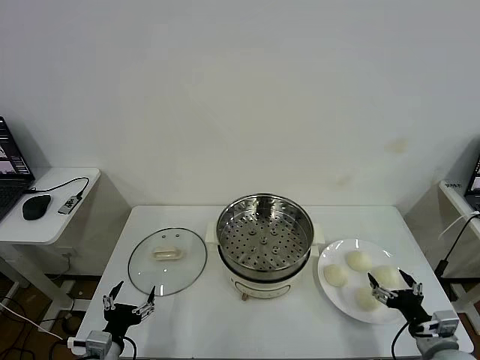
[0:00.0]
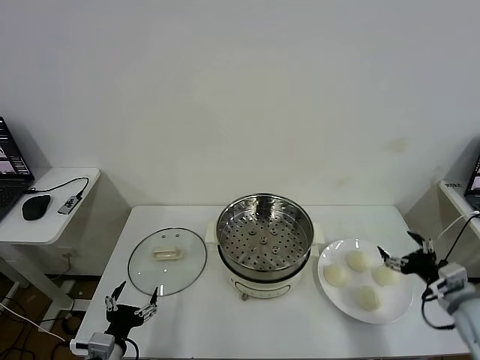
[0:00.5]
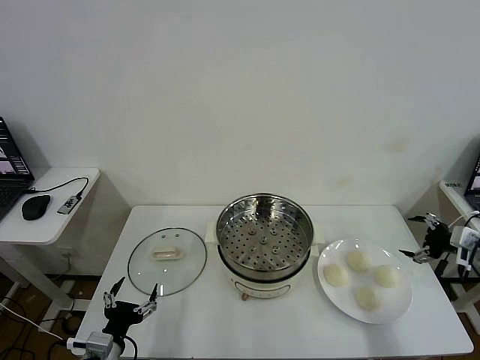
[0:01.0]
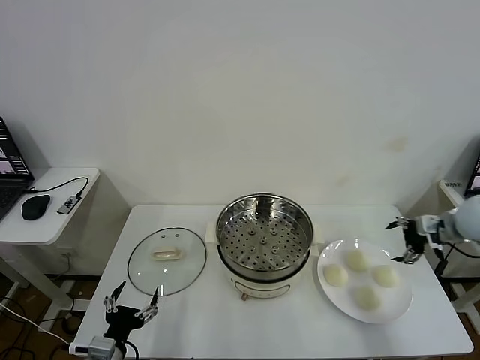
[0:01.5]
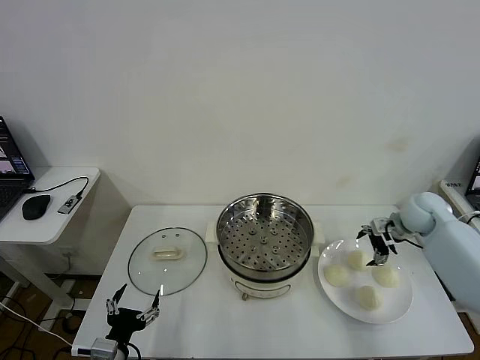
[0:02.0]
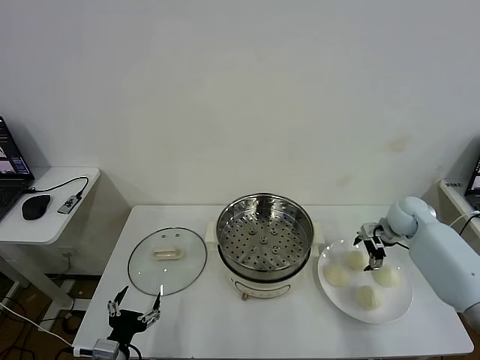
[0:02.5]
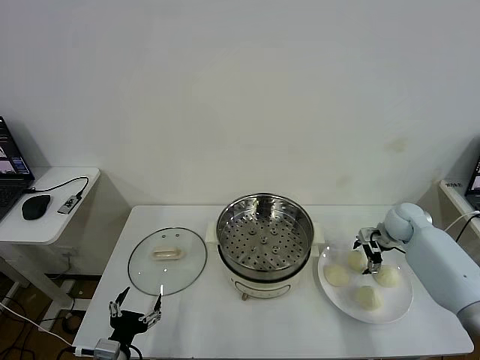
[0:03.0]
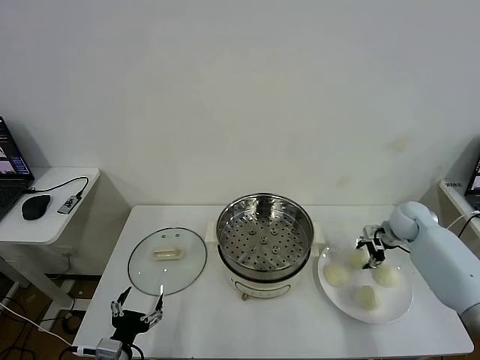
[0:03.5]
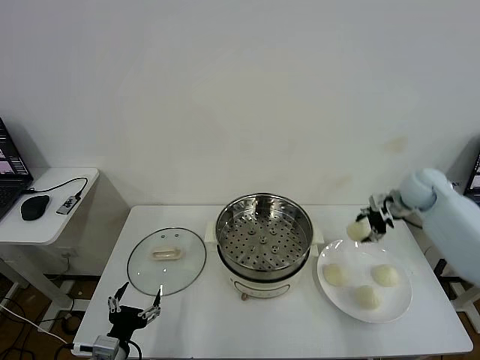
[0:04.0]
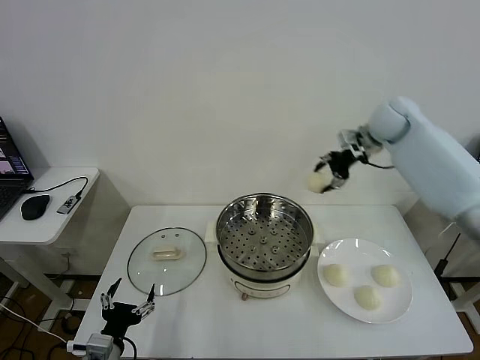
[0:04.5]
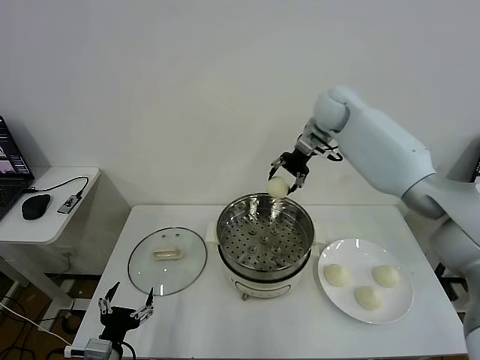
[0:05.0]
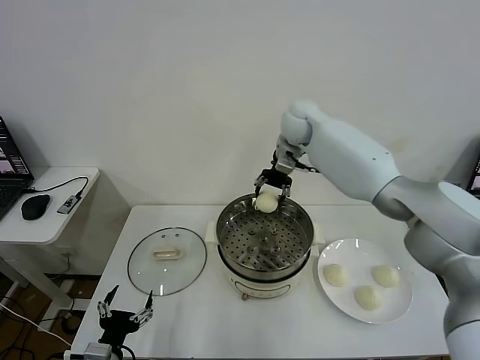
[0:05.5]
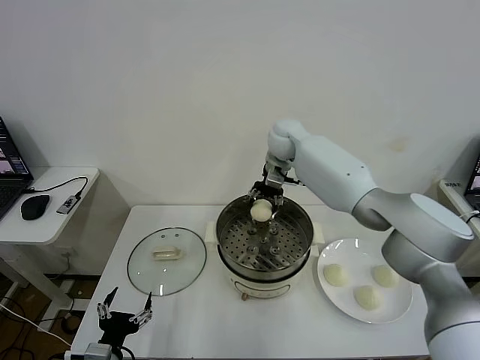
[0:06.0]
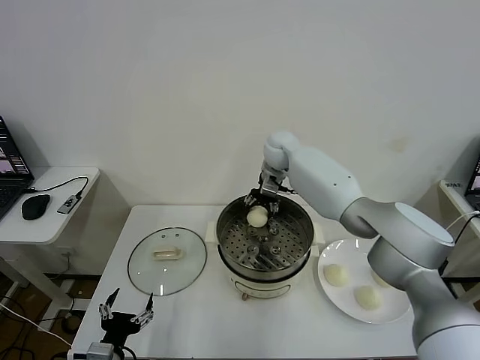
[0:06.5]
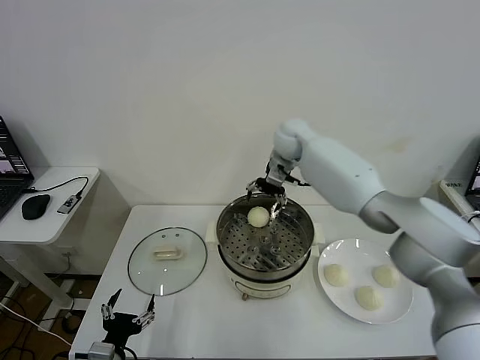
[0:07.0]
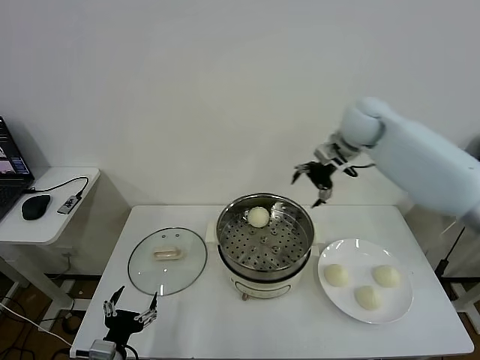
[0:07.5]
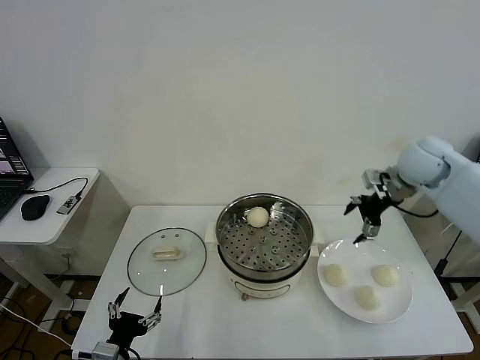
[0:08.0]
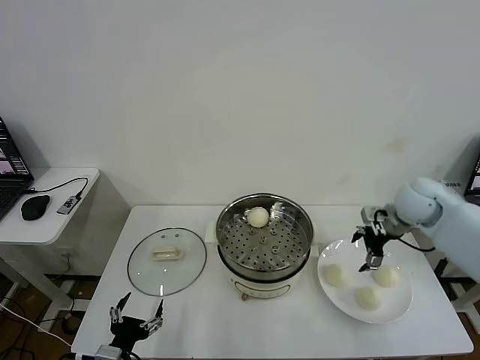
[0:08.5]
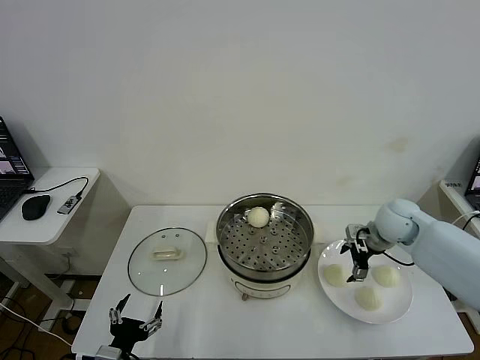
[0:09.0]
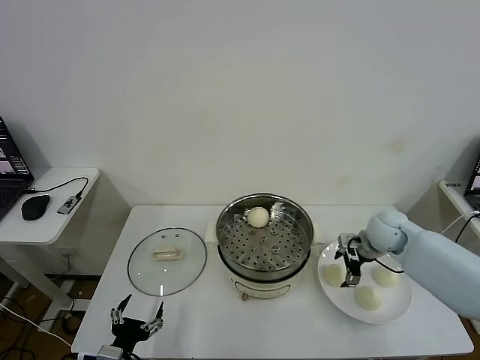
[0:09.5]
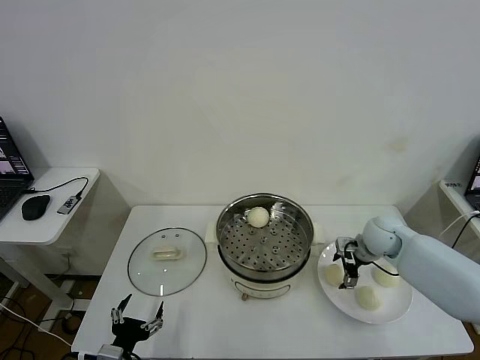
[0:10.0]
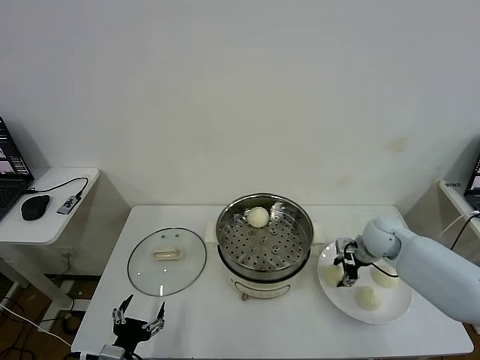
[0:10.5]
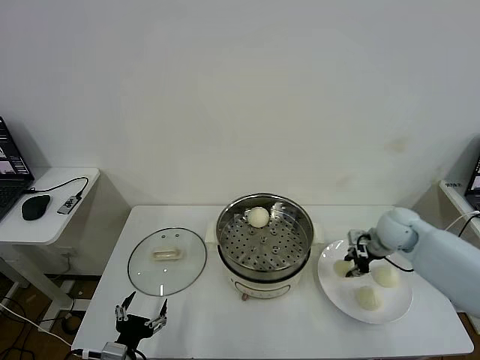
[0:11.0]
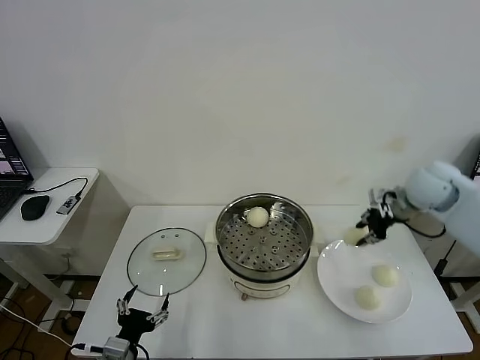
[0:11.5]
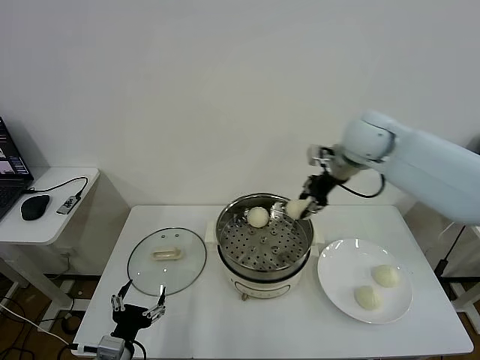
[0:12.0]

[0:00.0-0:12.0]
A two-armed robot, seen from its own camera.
Task of the whole recording: take steamed baozi put them in steamer then cover it.
Step, 0:00.0 to 0:03.0: Grasp the baozi in the plate with right gripper.
Step, 0:03.5 to 0:06.5: Place the baozi on the steamer with right gripper.
Step, 0:07.0 to 0:10.0: Grasp the baozi in the plate with right gripper.
0:02.0 to 0:04.0: The right gripper is displaced upward by roughly 10 cm, and closes its fingers.
0:04.0 to 0:06.0: The right gripper is displaced to the left by about 30 cm.
0:06.0 to 0:08.0: The right gripper shifts about 30 cm to the right and backward, and opens its fingers.
0:08.0 to 0:10.0: The right gripper travels downward by about 15 cm.
0:10.0 to 0:12.0: The right gripper heads upward and to the left, covering roughly 30 cm, and closes.

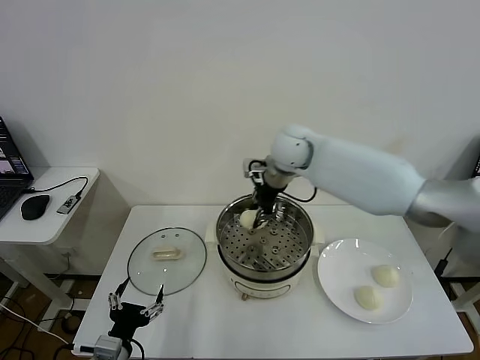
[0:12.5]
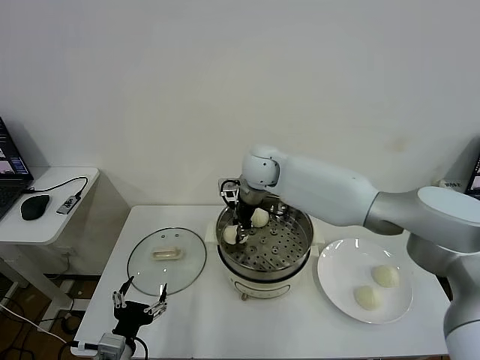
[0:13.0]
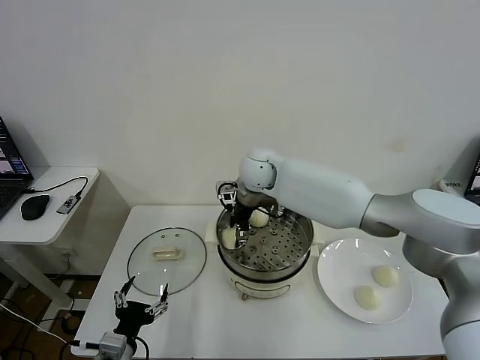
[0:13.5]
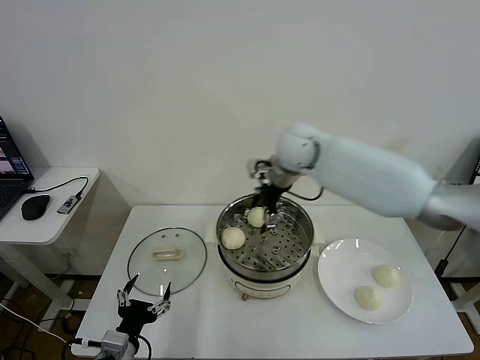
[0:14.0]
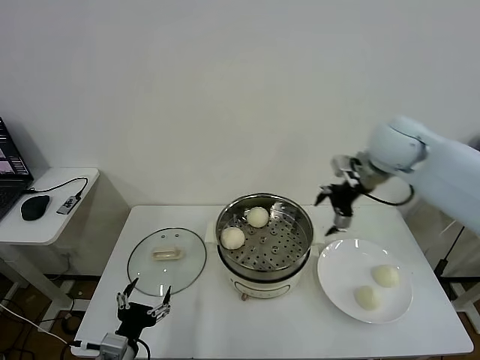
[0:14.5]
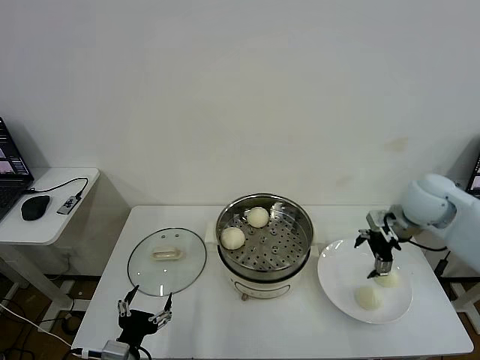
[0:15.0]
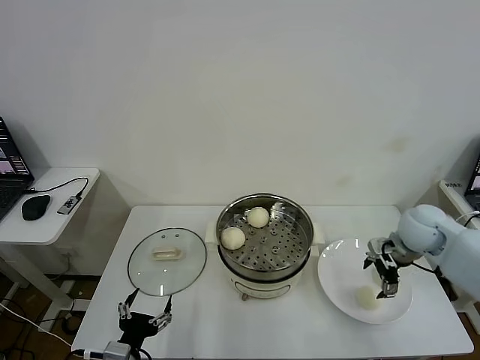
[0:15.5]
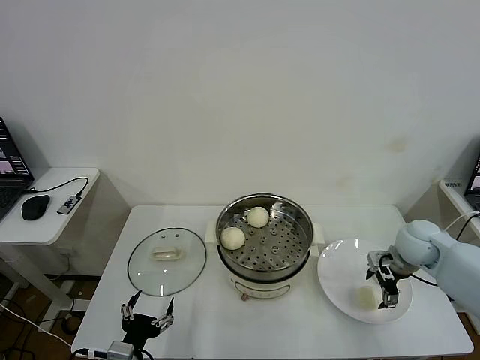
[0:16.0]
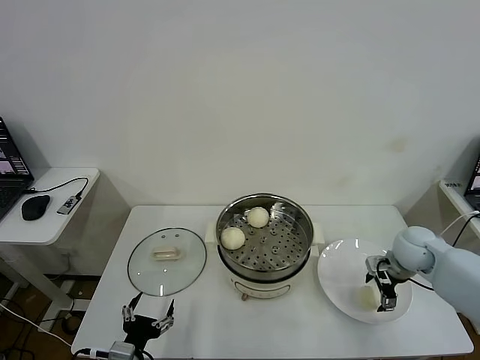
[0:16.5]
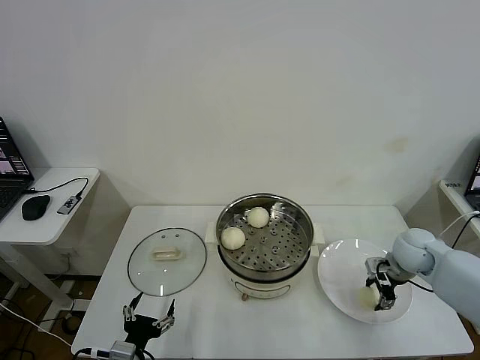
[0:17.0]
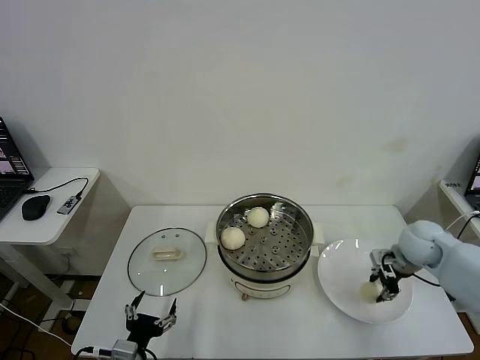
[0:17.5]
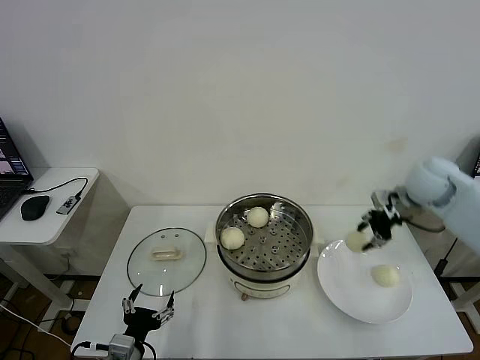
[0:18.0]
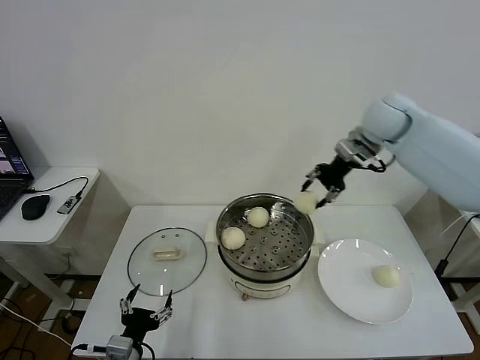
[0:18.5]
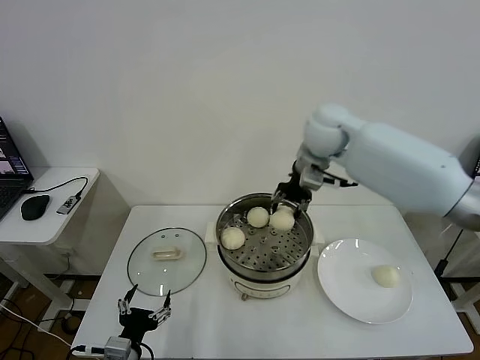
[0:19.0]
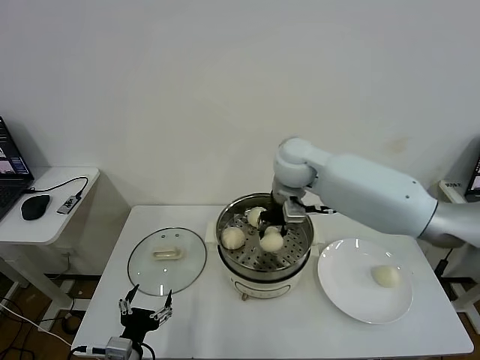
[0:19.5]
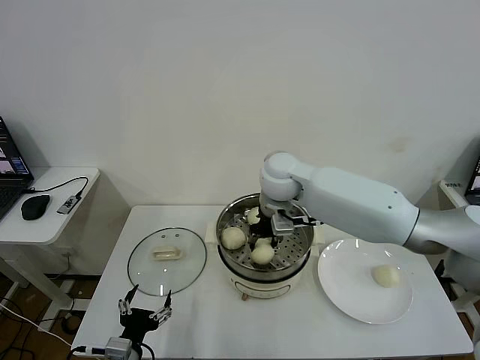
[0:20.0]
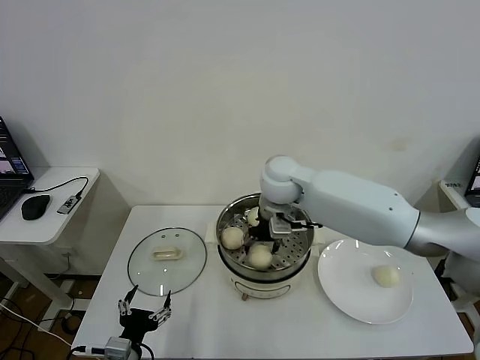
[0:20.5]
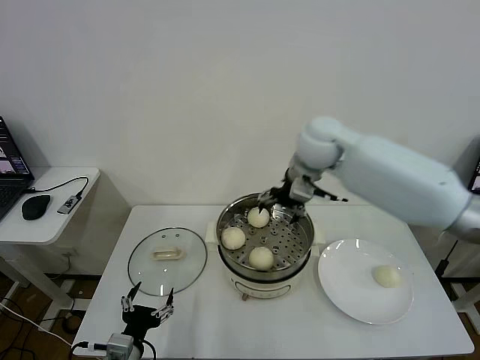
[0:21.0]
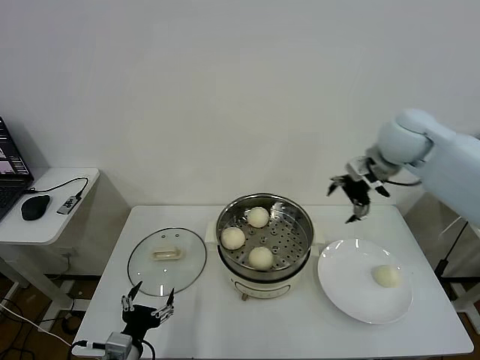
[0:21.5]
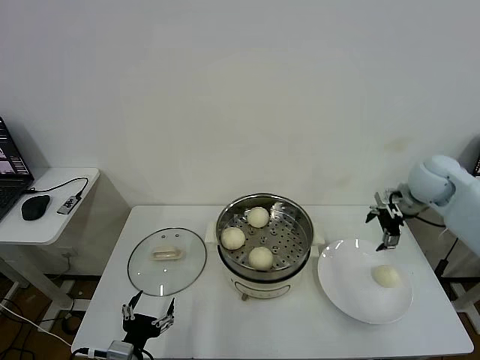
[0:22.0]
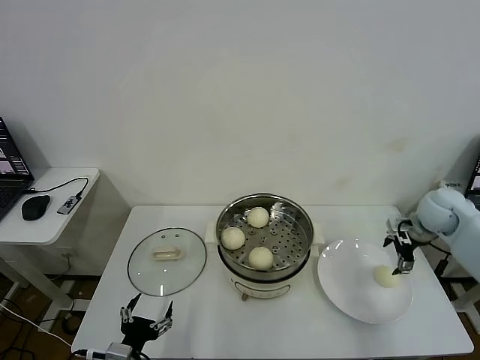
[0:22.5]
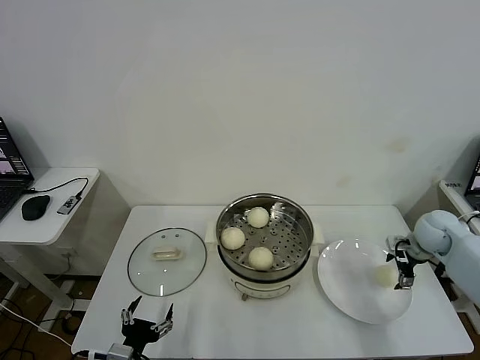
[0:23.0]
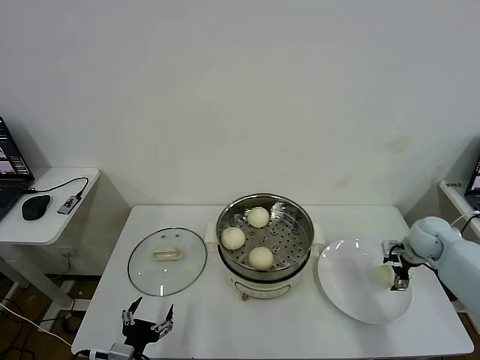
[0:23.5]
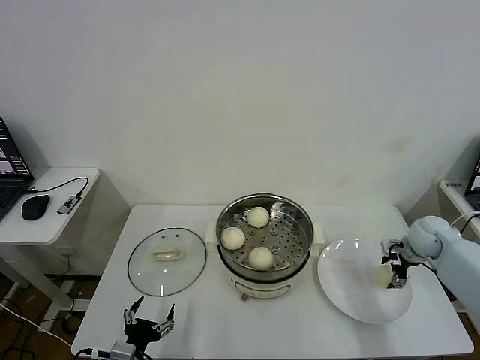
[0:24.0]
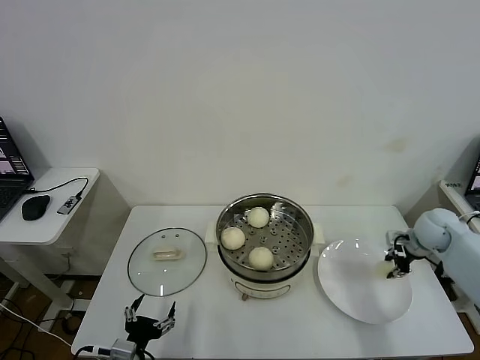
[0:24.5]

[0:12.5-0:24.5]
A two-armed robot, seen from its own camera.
Task of the whole recording: take steamed baozi put them in steamer then cover it.
Step, 0:14.0 to 0:17.0: Grasp the baozi in the plate with right gripper.
Step, 0:17.5 to 0:20.5: Place the baozi on the steamer with right gripper.
Step, 0:21.0 to 0:24.0: Grasp the baozi in the plate with right gripper.
0:12.5 to 0:14.5: The right gripper is displaced to the right by roughly 25 cm, and opens its fingers.
0:14.5 to 0:16.5: The right gripper heads downward, covering some 20 cm.
0:16.5 to 0:18.5: The right gripper is displaced upward, forward and to the left by about 30 cm, and closes.
0:18.5 to 0:20.5: The right gripper heads to the left and downward, covering about 20 cm, and opens its fingers.
0:20.5 to 0:22.5: The right gripper shifts about 35 cm to the right.
0:22.5 to 0:24.5: The right gripper goes approximately 5 cm downward, and closes up.

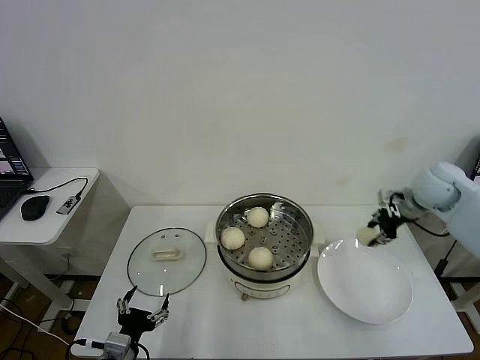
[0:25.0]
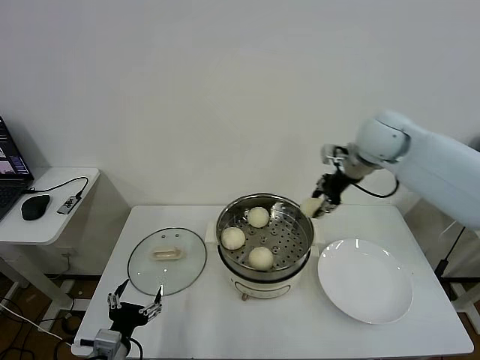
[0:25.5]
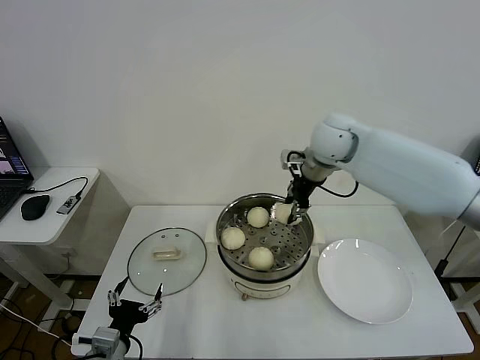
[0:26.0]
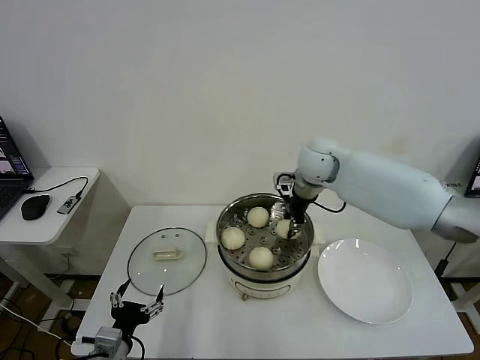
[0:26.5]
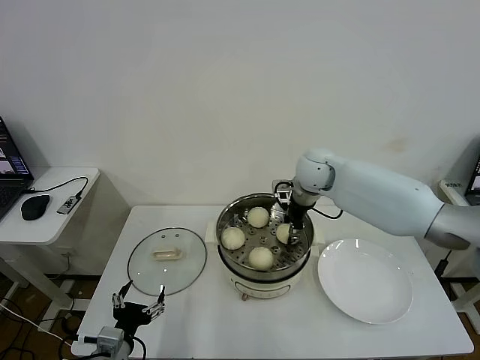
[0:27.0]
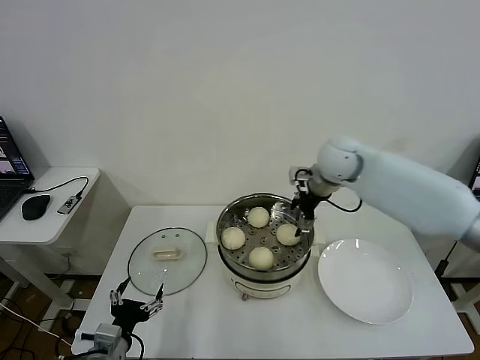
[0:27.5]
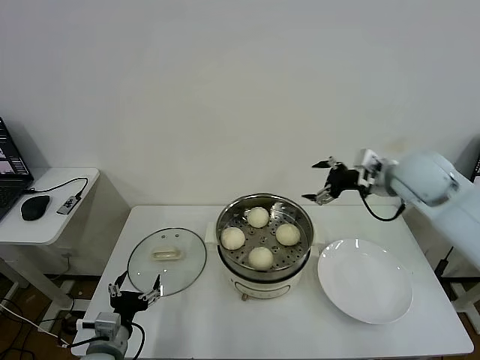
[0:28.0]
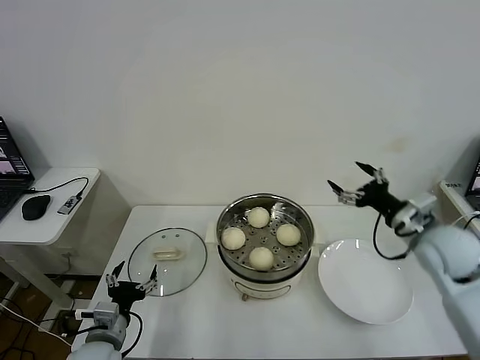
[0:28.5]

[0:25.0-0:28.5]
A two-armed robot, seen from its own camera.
Task of the whole recording: take steamed baozi put them in steamer then cover it.
Step, 0:25.0 to 0:27.0: Place the baozi on the steamer with right gripper.
0:25.0 to 0:27.0: The right gripper shifts roughly 25 cm to the left.
0:27.0 to 0:28.5: The left gripper changes place by about 5 cm. Meanwhile the right gripper shifts some 30 cm to the right and backward, and opens up.
